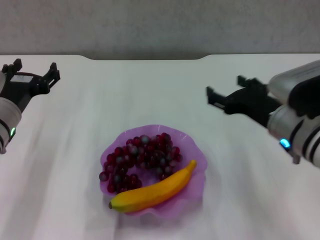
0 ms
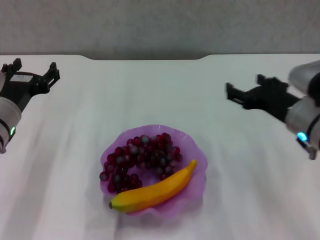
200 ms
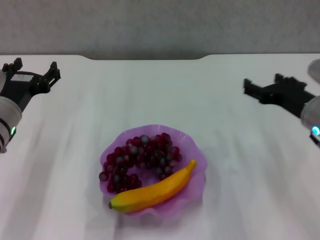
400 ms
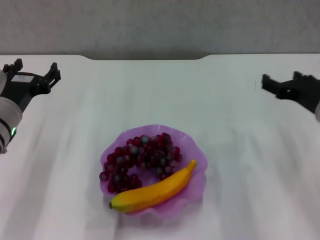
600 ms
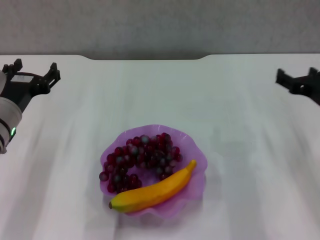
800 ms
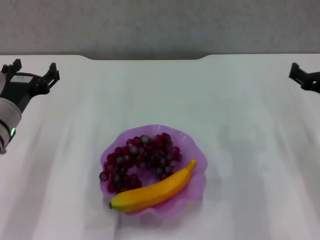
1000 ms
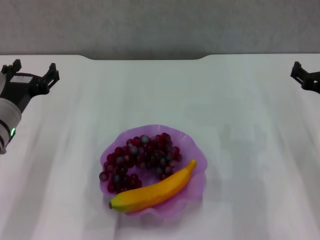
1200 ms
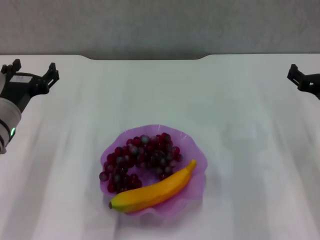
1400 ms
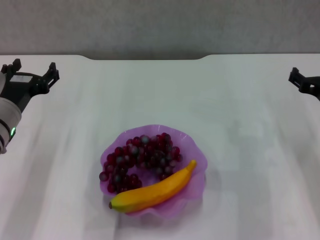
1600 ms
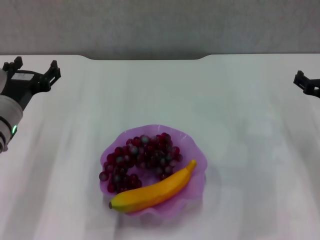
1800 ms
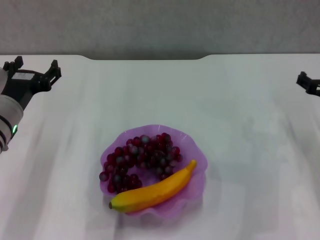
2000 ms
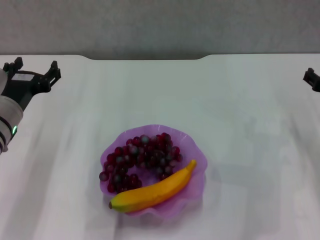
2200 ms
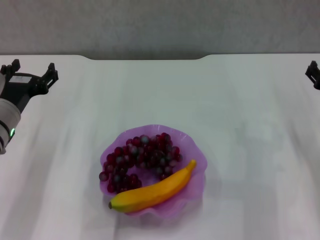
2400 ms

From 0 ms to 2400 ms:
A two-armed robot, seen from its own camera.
From 0 ms to 1200 ms: The right gripper goes some 10 cm to the right.
From 1200 ms to 2400 ms: The grippers stay close to where they were, moving slightly.
